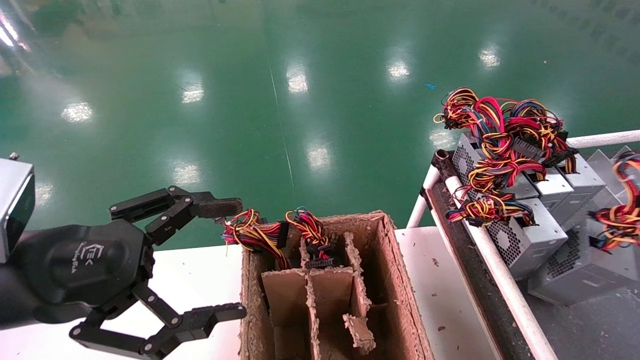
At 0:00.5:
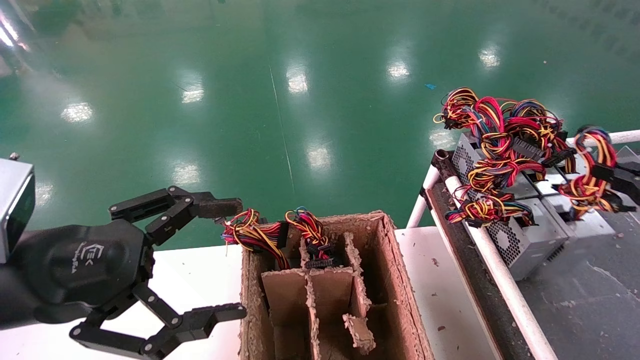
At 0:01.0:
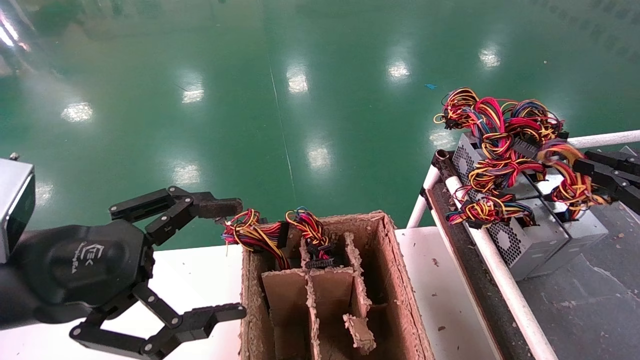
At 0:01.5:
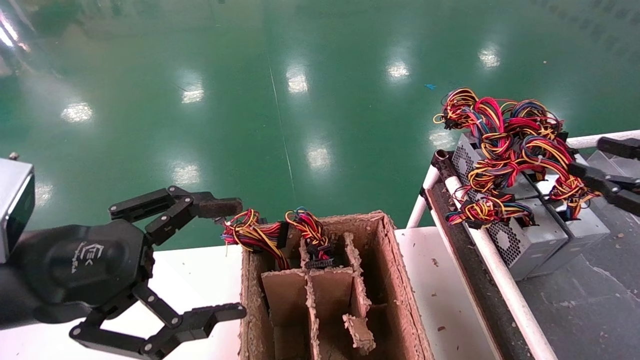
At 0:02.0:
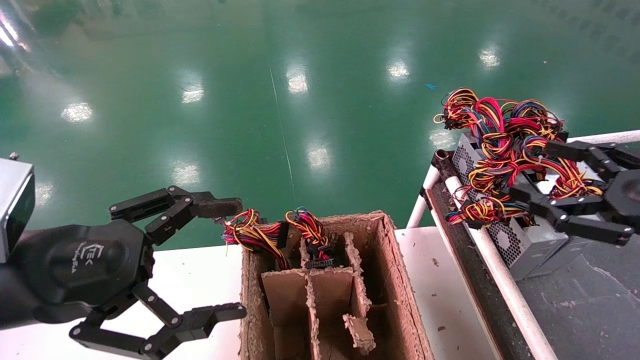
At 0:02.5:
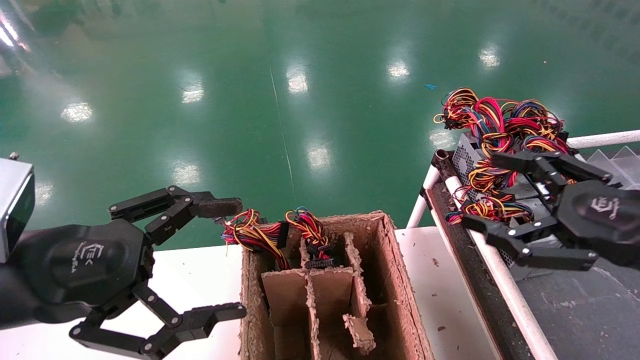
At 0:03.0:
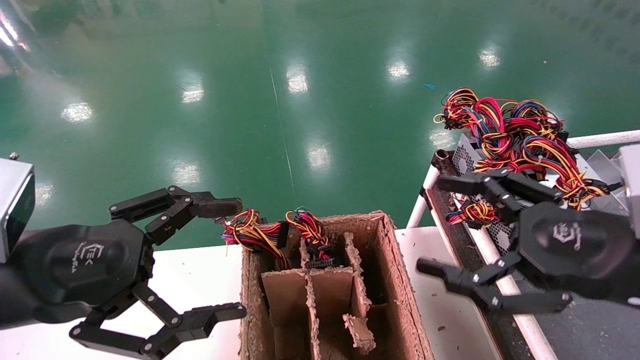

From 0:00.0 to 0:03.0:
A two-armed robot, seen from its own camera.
From 0:00.0 to 0:01.5: The right gripper heads forward and to the left, covering about 5 cm.
From 0:01.5 to 0:03.0: The right gripper moves to the left, some 15 cm, and opens its fingers.
